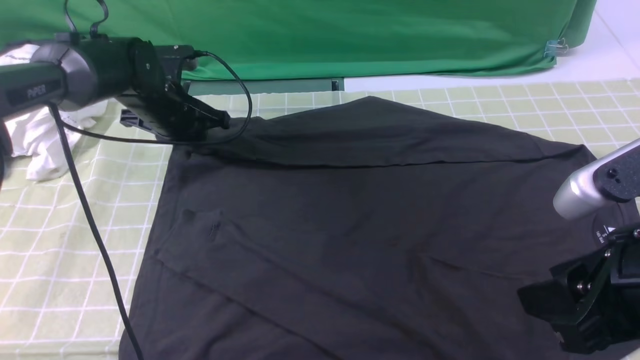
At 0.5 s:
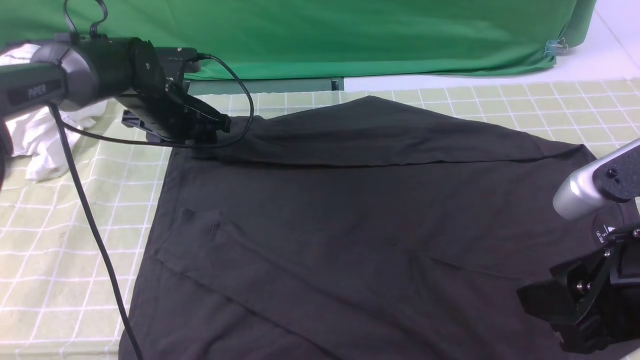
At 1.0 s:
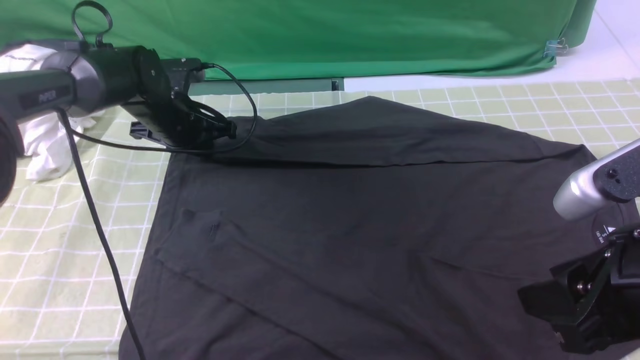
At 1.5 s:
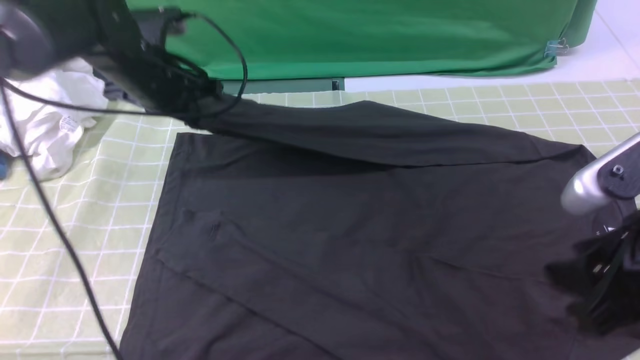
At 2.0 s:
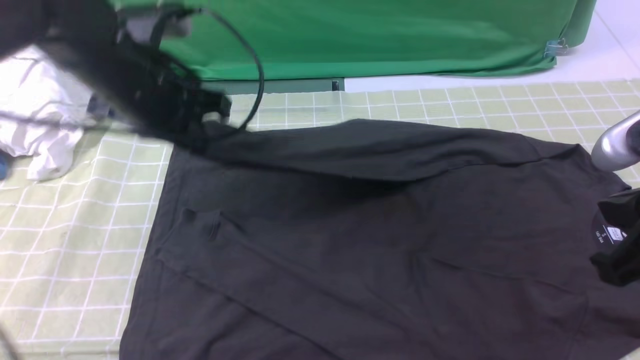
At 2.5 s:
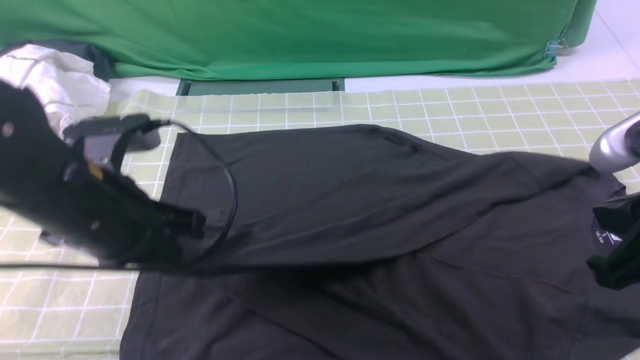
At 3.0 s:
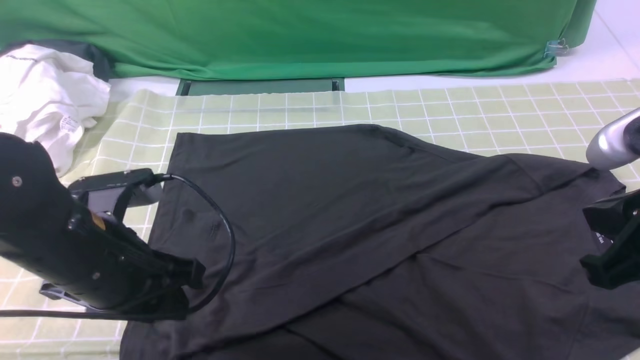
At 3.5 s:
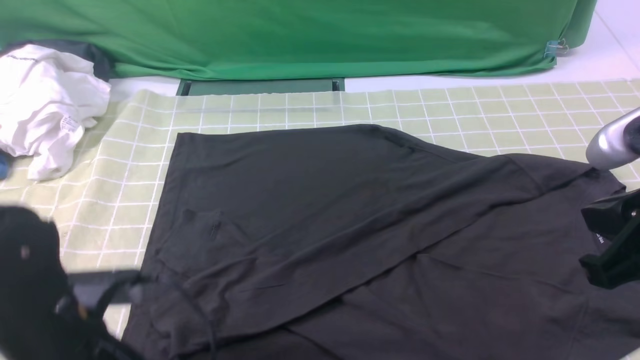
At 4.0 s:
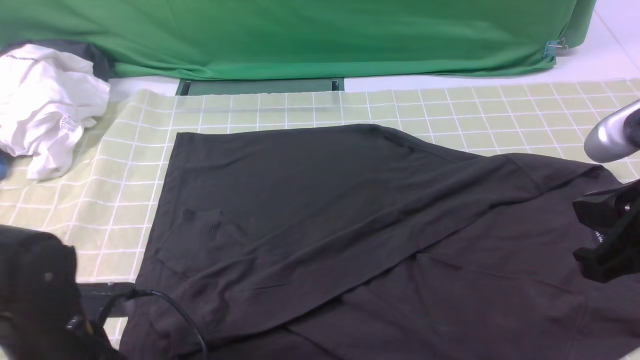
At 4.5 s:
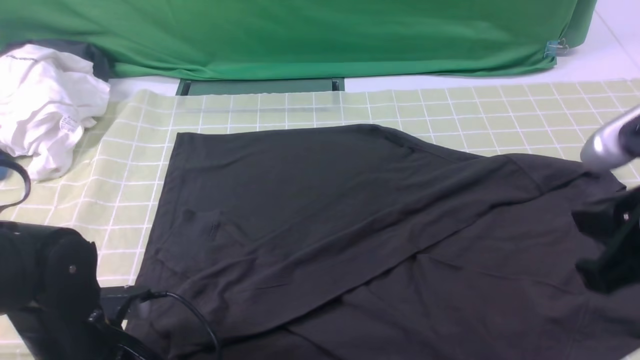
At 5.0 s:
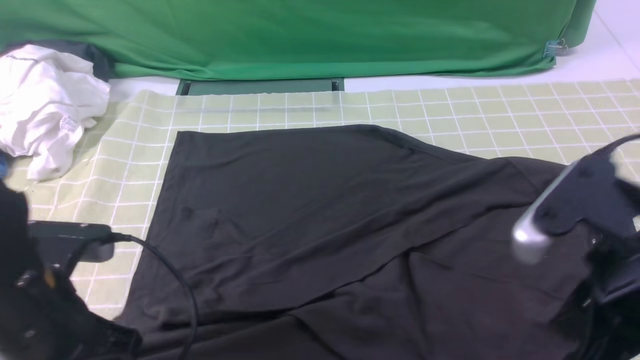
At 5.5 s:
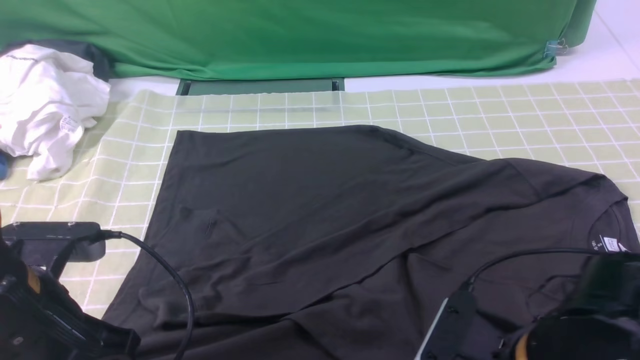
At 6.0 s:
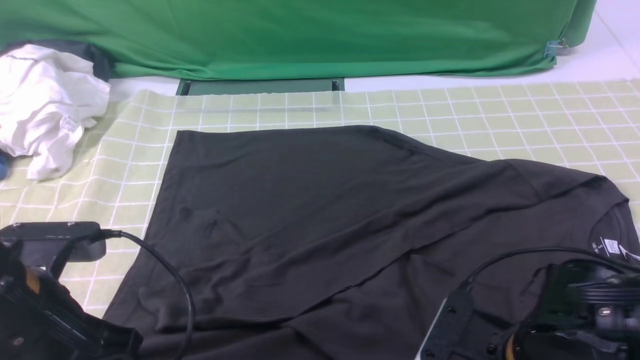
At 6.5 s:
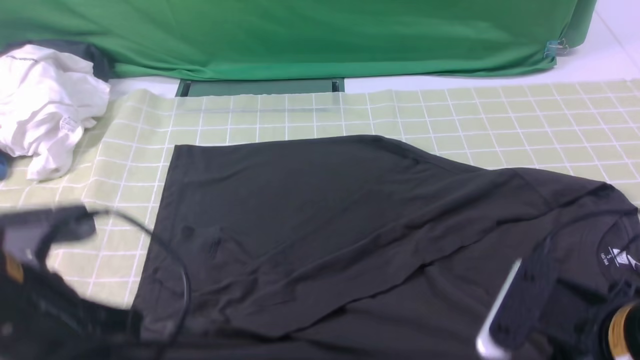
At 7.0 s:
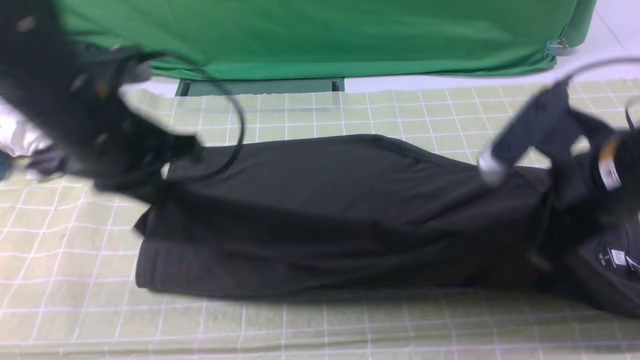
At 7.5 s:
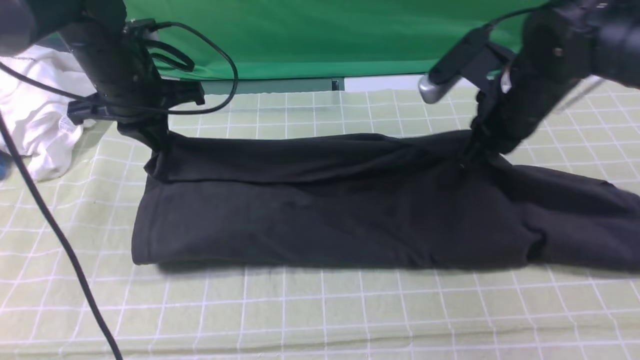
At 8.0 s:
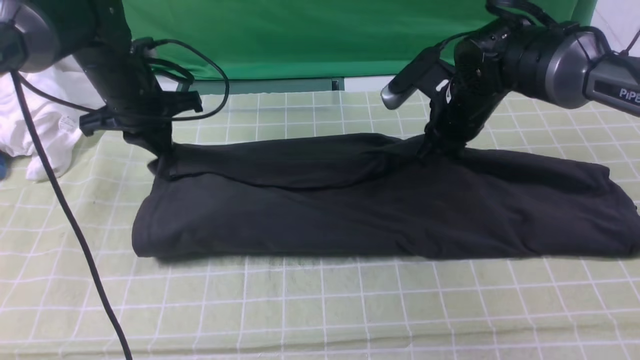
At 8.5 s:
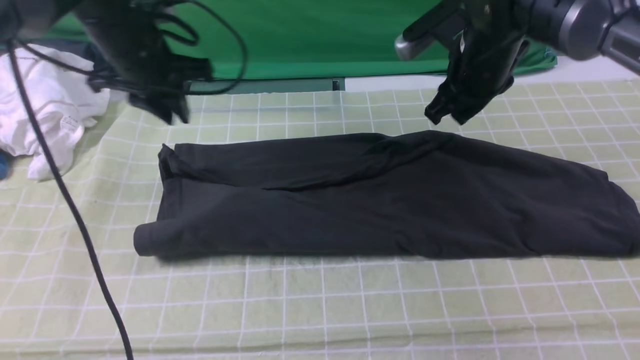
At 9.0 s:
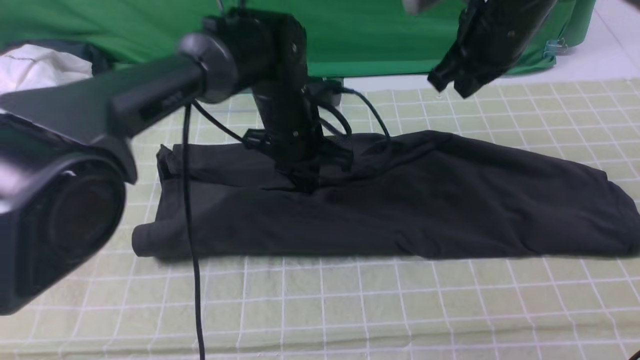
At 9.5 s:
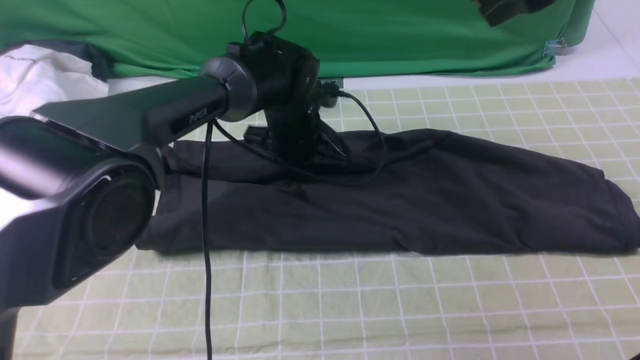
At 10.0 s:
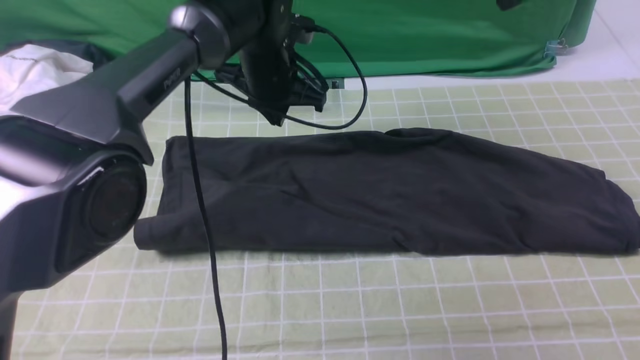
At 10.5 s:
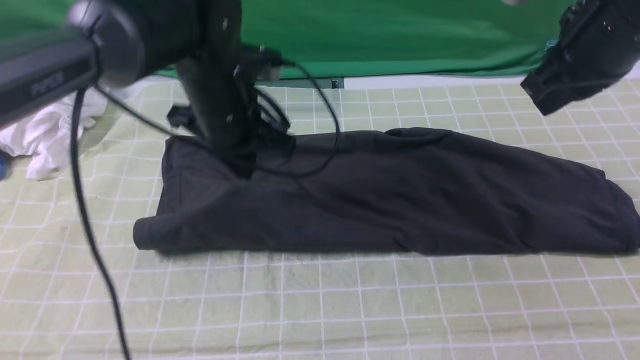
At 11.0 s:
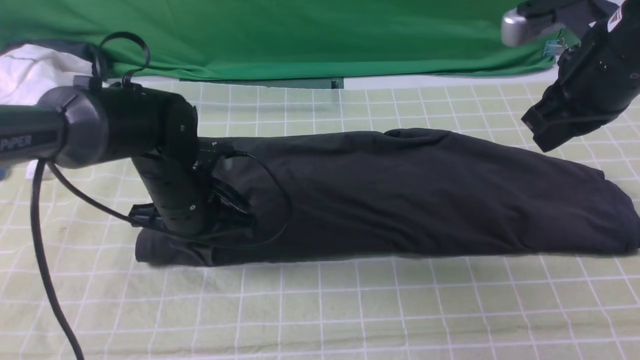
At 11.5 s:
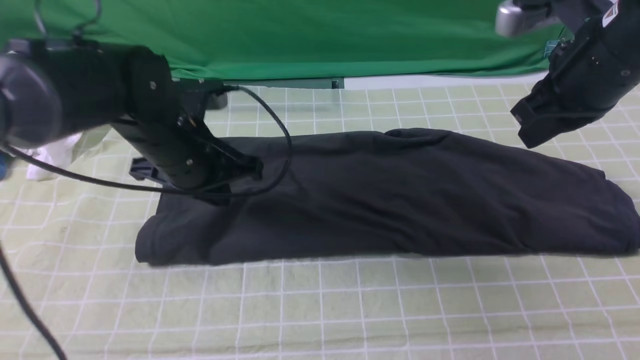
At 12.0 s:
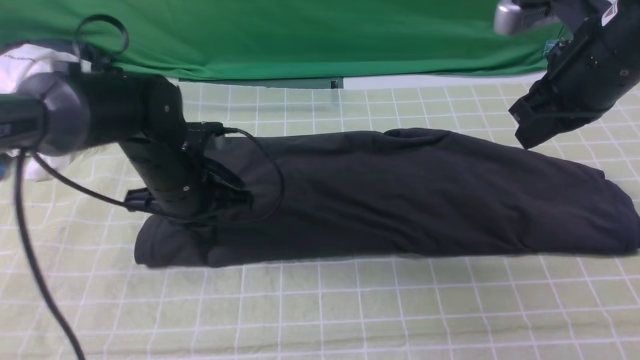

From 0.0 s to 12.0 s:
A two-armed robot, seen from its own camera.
Step, from 1.5 s to 3.0 s: use the left arm to drag and drop the cuff onto the cuff closest to the left arm.
Step, from 3.5 s to 5.5 s: use both arms simultaneously to clamp the lower edge of the clothing fabric.
Step, from 6.0 s to 9.5 s: use both arms to drag the lower edge of the fabric forward and fold it over the upper edge.
From 0.0 s to 2.0 s: The right gripper closes; the left gripper is displaced backward and upward by approximately 20 cm, and closes up.
From 2.0 s to 4.0 s: The left gripper is displaced backward and downward by approximately 20 cm, and opens its fingers.
From 4.0 s to 6.0 s: The right gripper heads downward and to the left, covering roughly 15 cm, and opens and closes again, while the left gripper heads upward, covering about 10 cm, and closes its fingers.
From 6.0 s to 8.0 s: The two grippers go about 30 cm forward.
From 8.0 s to 10.0 s: The right gripper shifts about 25 cm upward and backward. Meanwhile the left gripper travels to the right by about 15 cm.
From 10.0 s to 12.0 s: The left gripper moves backward and to the left, some 15 cm. The right gripper is displaced downward by roughly 10 cm.

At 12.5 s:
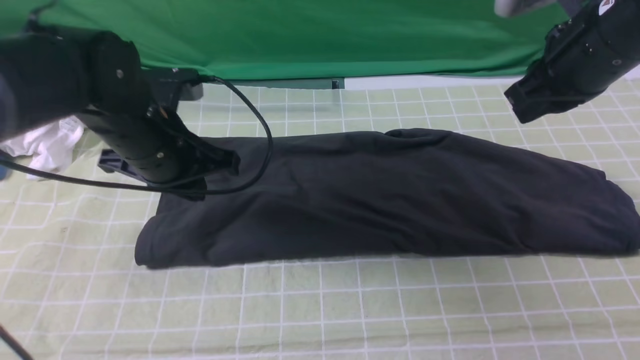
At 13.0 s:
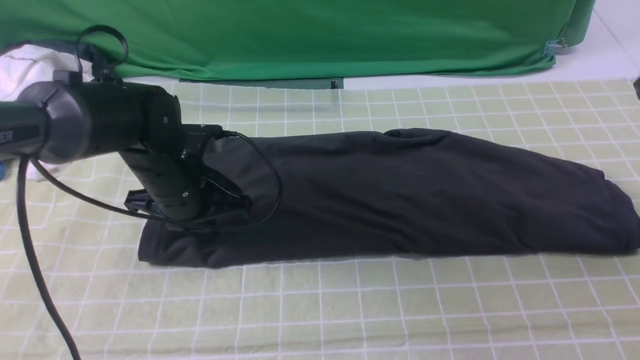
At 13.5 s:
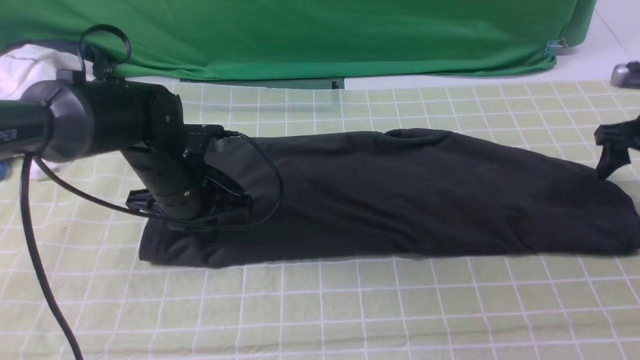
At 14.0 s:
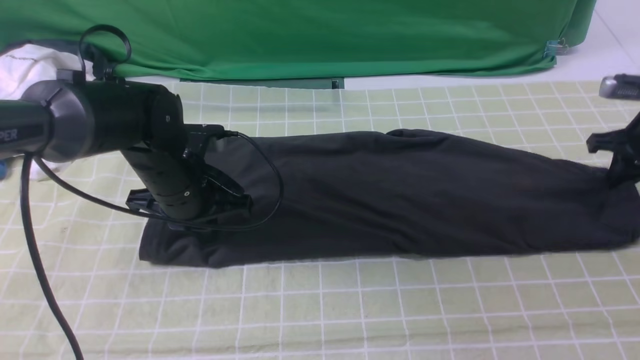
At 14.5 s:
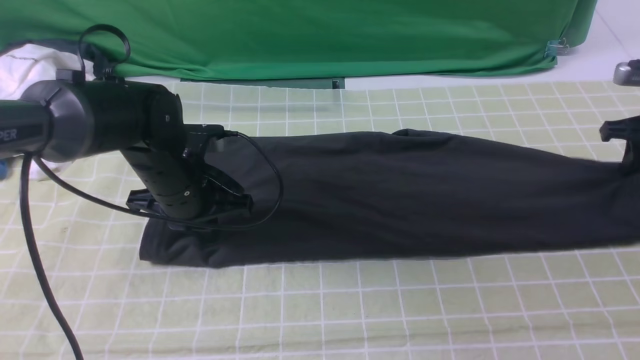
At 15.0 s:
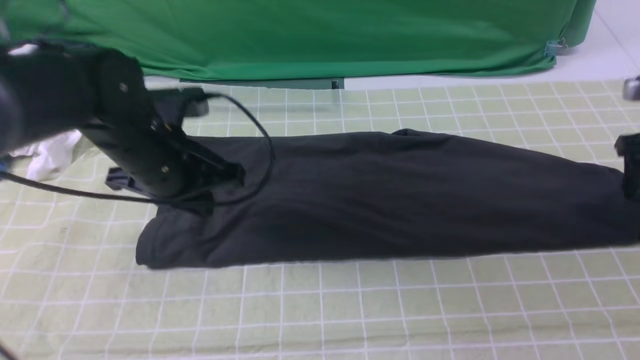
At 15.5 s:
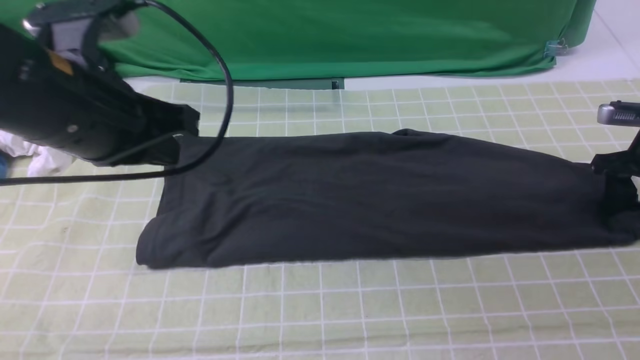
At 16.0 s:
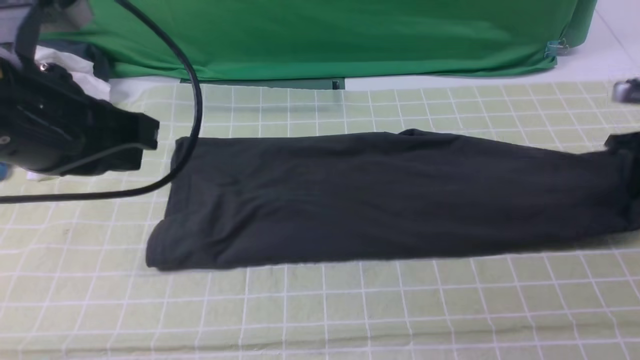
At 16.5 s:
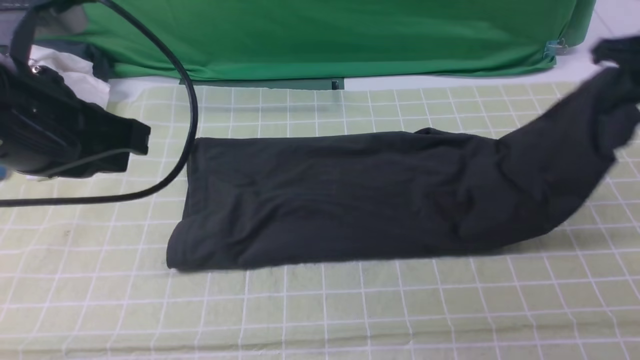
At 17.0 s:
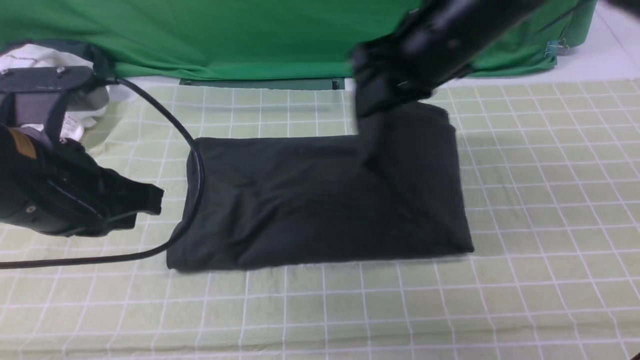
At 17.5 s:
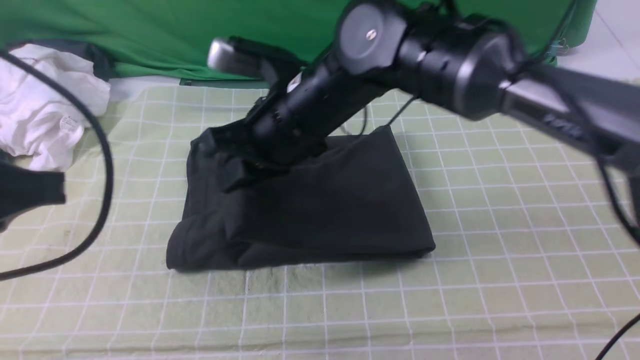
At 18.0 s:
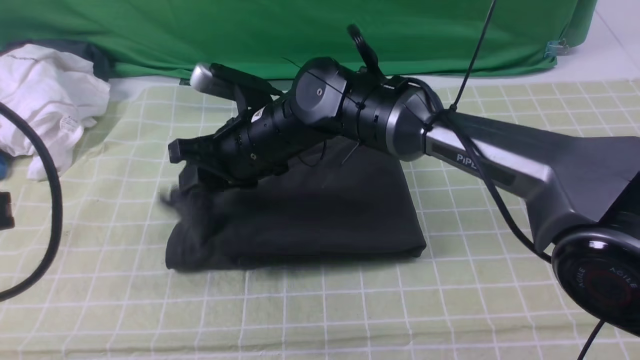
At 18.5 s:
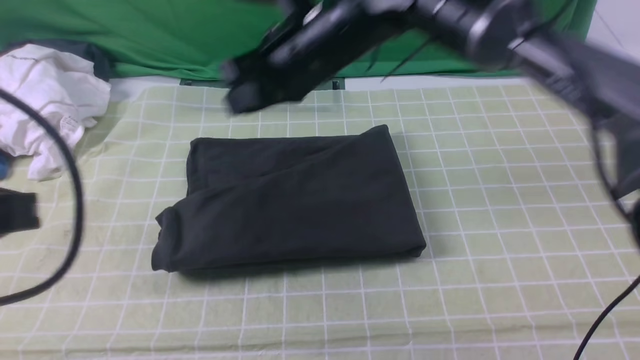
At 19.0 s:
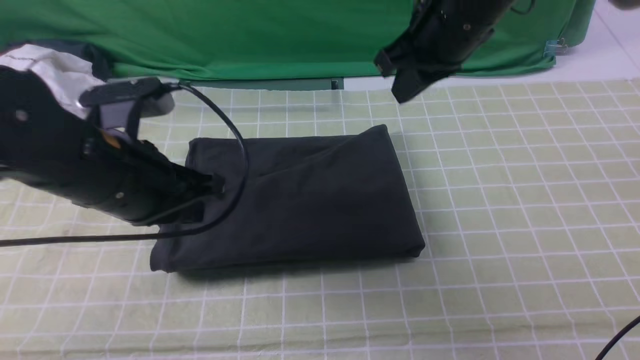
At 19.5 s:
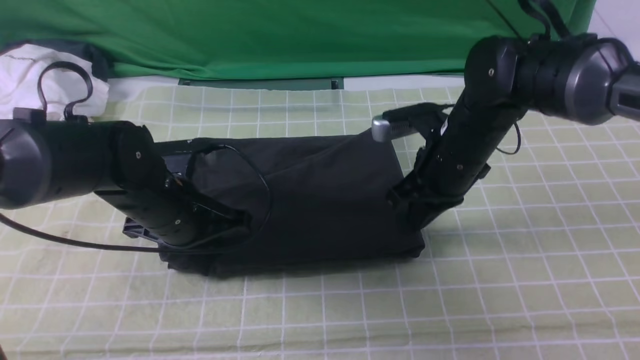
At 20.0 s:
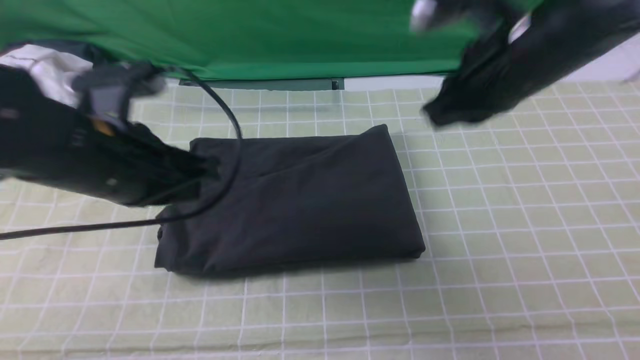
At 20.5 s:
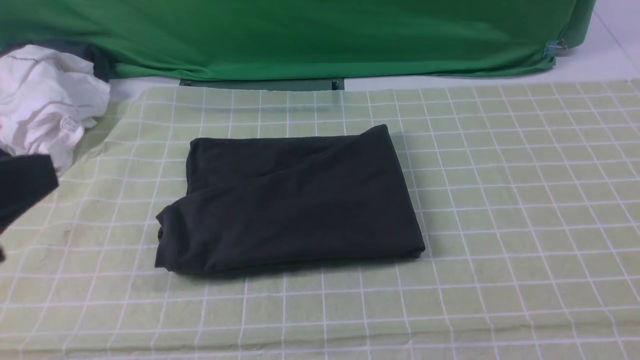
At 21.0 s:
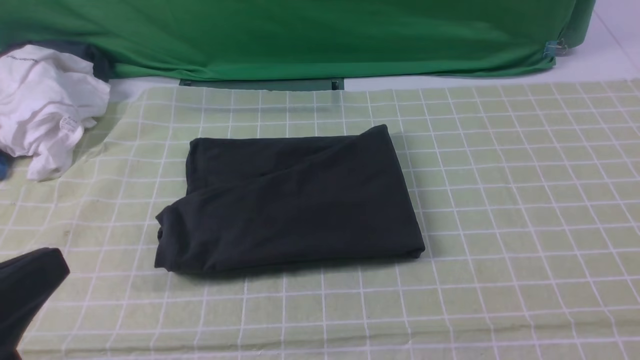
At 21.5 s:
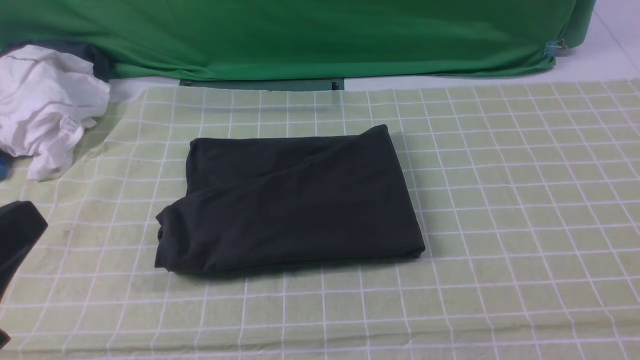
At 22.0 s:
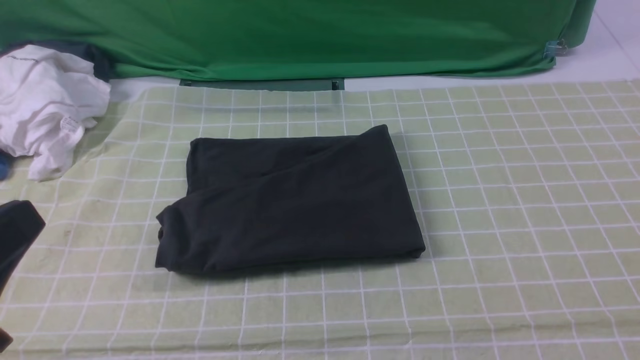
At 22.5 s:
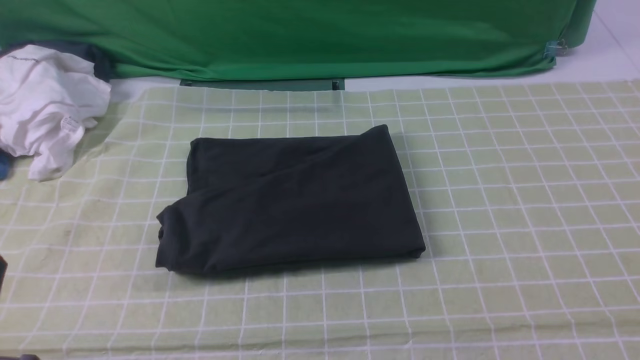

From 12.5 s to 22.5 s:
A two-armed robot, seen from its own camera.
Step, from 12.5 s to 15.5 s: use the right arm to clamp the right edge of the fabric.
Step, from 16.0 s to 18.0 s: use the right arm to drag the right edge of the fabric to the left and folds it over the left edge.
From 12.5 s to 14.5 s: The right gripper moves to the right, downward and forward, about 25 cm, and opens its fingers. The left gripper travels downward by some 5 cm.
From 14.5 s to 16.5 s: The right gripper is displaced upward and to the left by some 15 cm, and closes. Meanwhile the left gripper is displaced upward and backward by roughly 25 cm.
From 16.5 s to 18.5 s: The left gripper goes approximately 5 cm backward. Meanwhile the right gripper goes about 30 cm to the left.
From 18.5 s to 20.5 s: The right gripper heads backward, to the right and upward, covering approximately 40 cm. The left gripper moves approximately 15 cm forward and comes back.
From 20.5 s to 22.5 s: The left gripper shifts roughly 15 cm downward.
